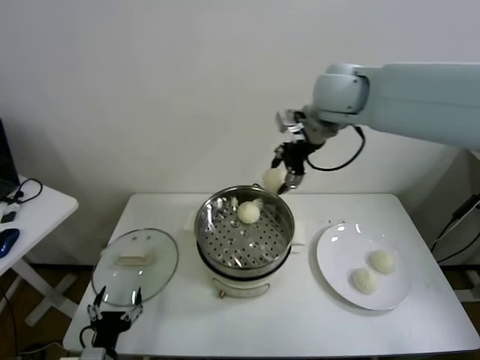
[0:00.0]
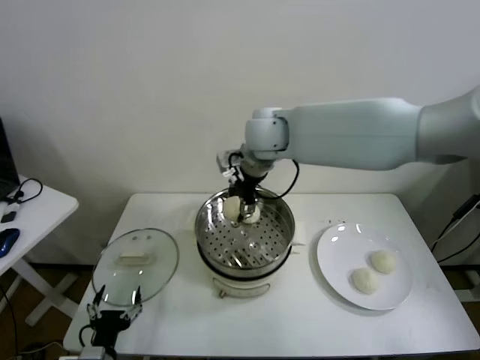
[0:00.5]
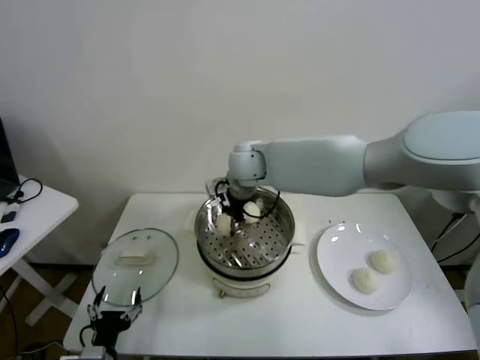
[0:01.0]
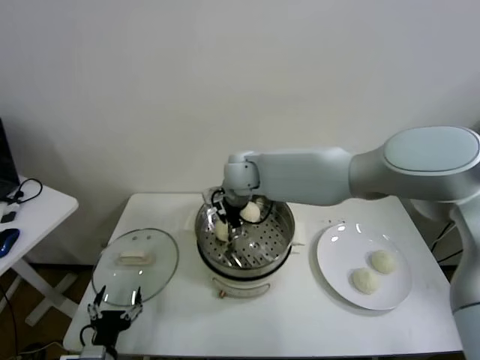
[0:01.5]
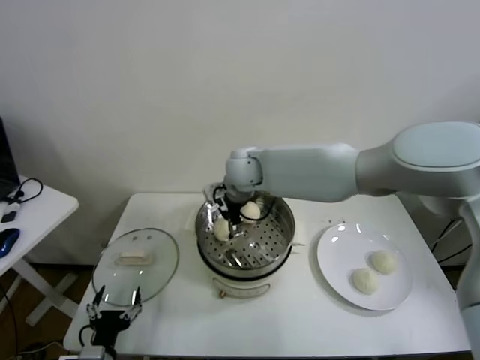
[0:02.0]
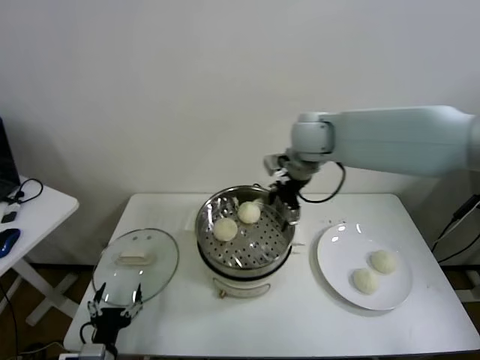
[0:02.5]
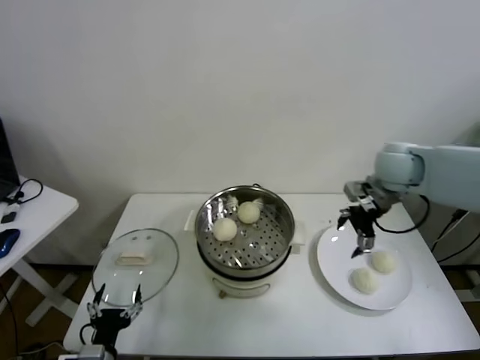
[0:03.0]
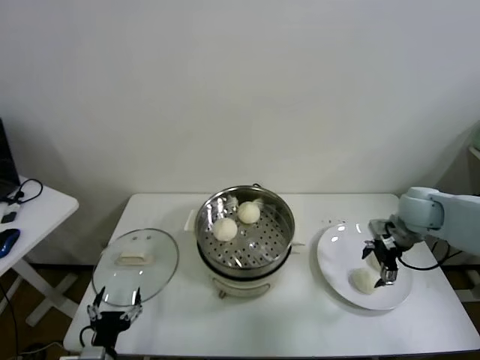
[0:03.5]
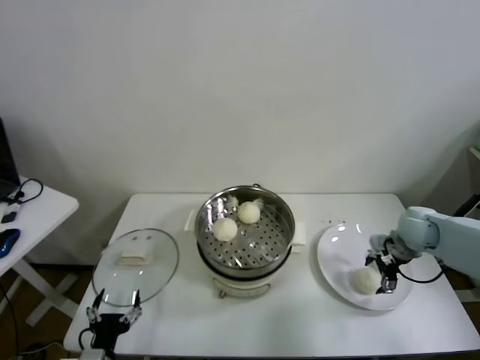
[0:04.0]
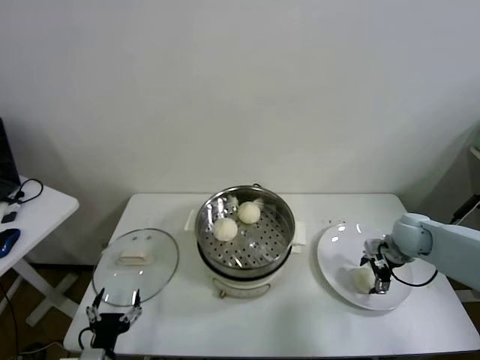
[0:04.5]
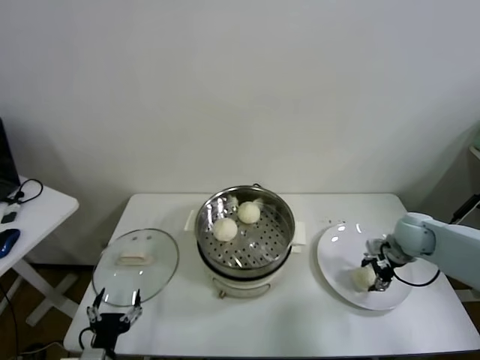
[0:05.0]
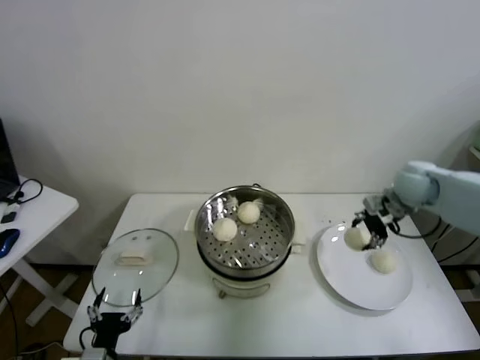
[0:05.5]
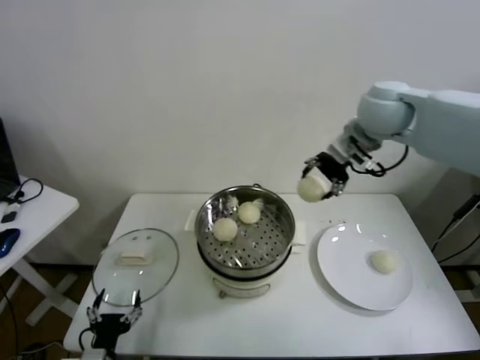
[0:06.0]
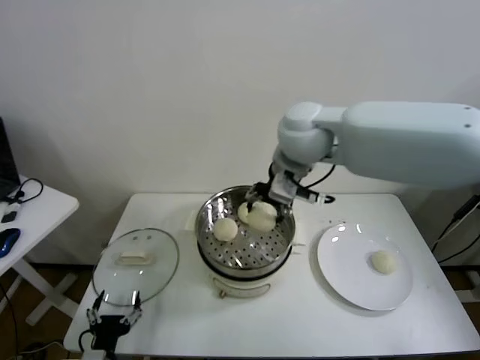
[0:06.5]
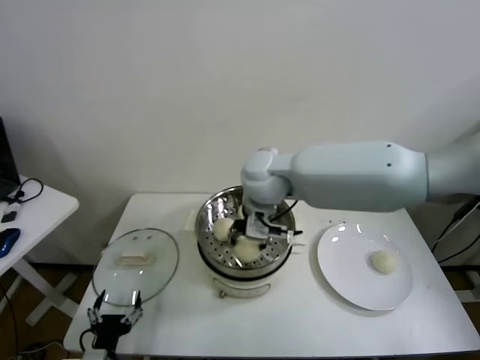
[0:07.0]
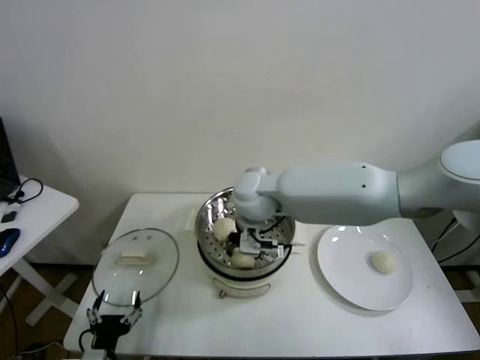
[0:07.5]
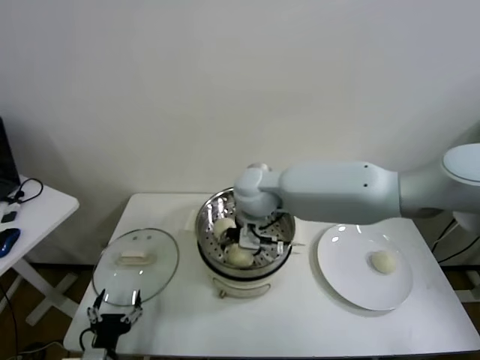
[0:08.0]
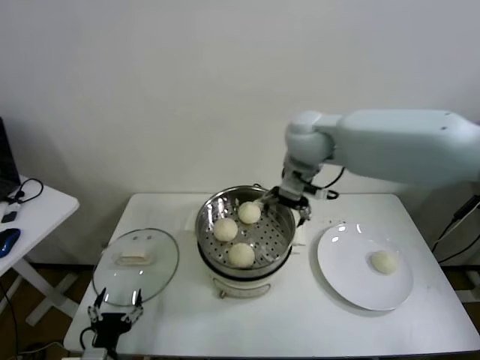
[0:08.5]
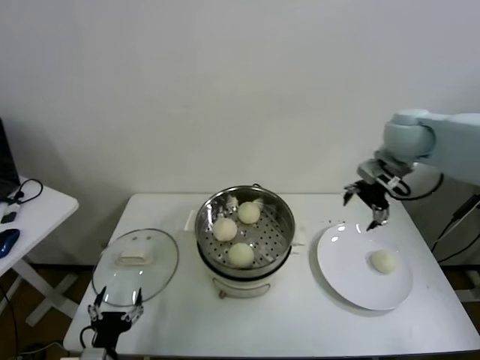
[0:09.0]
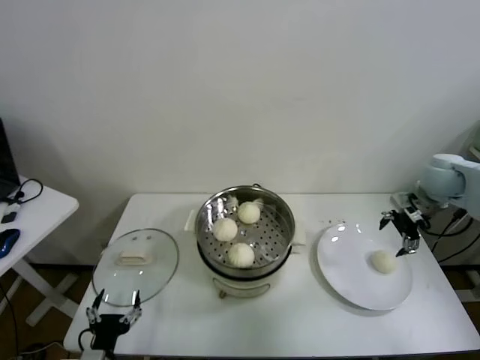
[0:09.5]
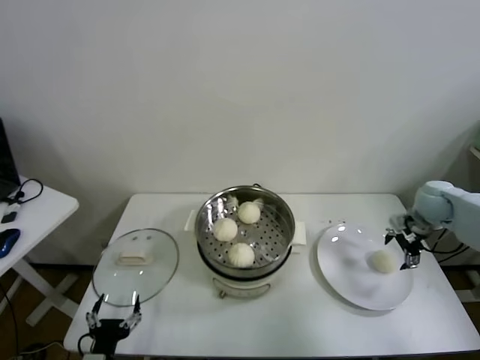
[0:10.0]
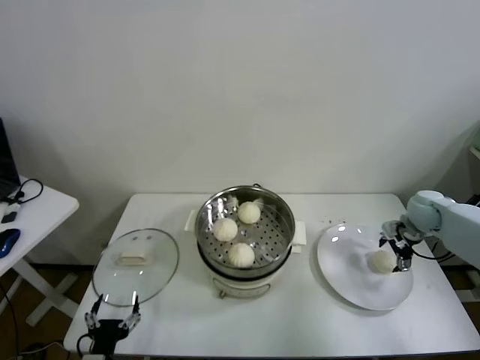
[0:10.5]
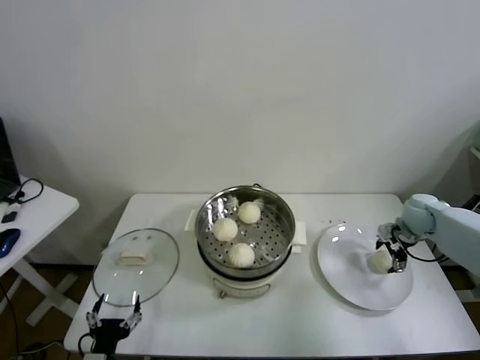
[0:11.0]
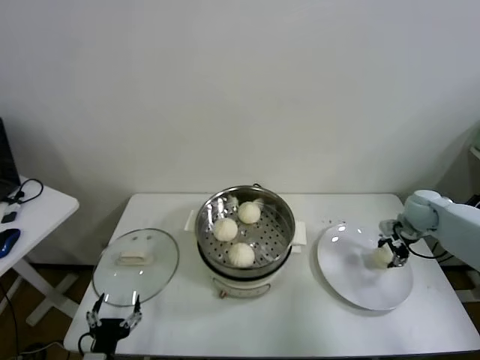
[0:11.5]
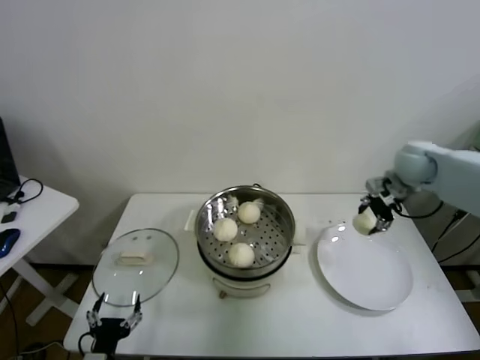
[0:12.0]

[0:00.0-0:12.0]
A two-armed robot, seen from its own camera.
Task of the whole recording: take steamed baozi put them in steamer.
Step, 0:00.0 to 0:01.5: Place the baozi on the steamer with right gripper.
Step, 0:02.0 to 0:05.0: Grasp the baozi in the plate with right gripper.
Step, 0:05.5 to 0:07.5: Place the baozi on the steamer with right gripper.
Step, 0:08.0 to 0:11.0: Grasp the baozi in the plate with right gripper.
0:00.0 to 0:02.0: The right gripper goes roughly 20 cm downward and to the left, and opens.
0:02.0 to 0:04.0: The right gripper moves to the right, about 40 cm.
0:04.0 to 0:06.0: The right gripper goes about 35 cm upward and to the left, and closes up.
0:06.0 to 0:08.0: The right gripper goes about 25 cm to the left and downward, and opens its fingers.
0:08.0 to 0:10.0: The right gripper shifts about 40 cm to the right.
0:10.0 to 0:12.0: The right gripper travels upward and to the left by approximately 15 cm, and closes its fingers.

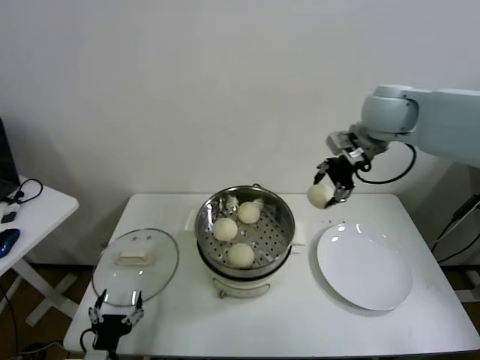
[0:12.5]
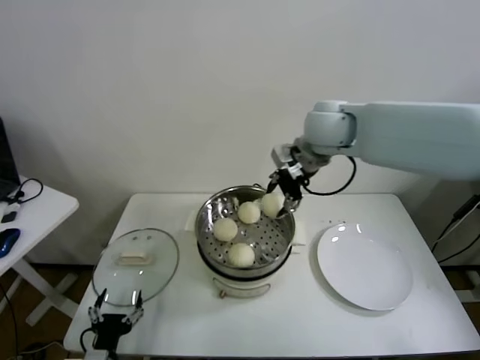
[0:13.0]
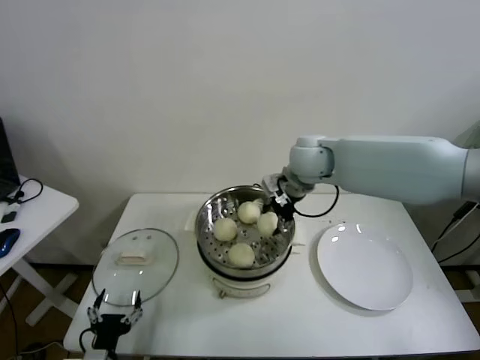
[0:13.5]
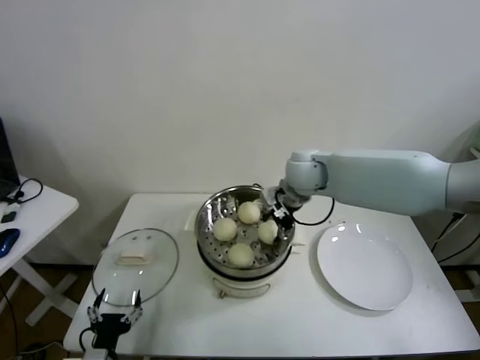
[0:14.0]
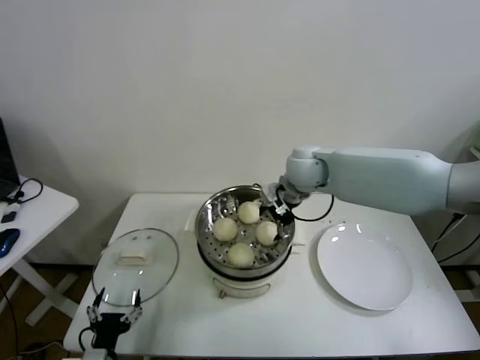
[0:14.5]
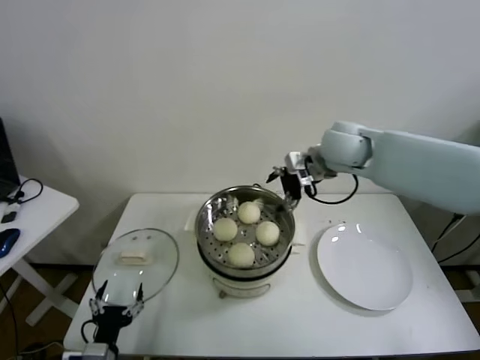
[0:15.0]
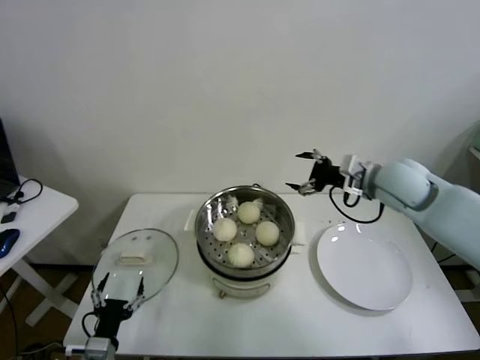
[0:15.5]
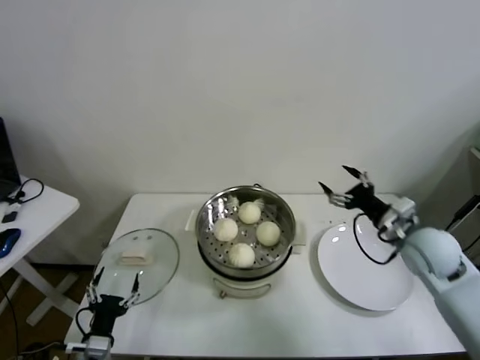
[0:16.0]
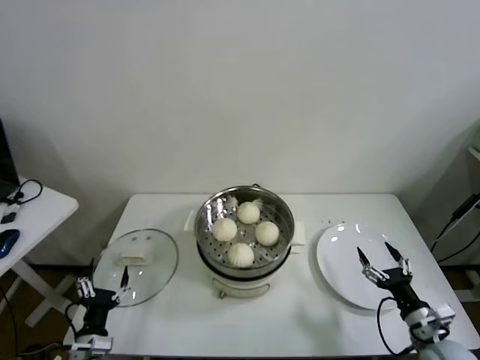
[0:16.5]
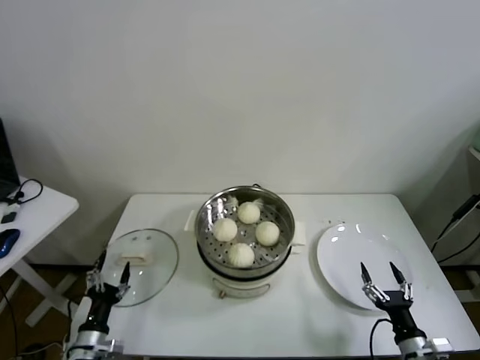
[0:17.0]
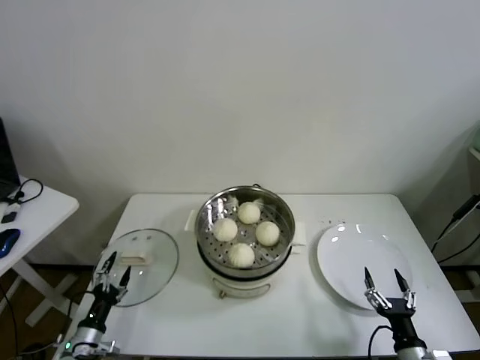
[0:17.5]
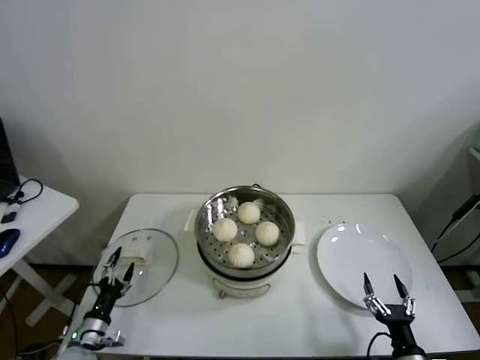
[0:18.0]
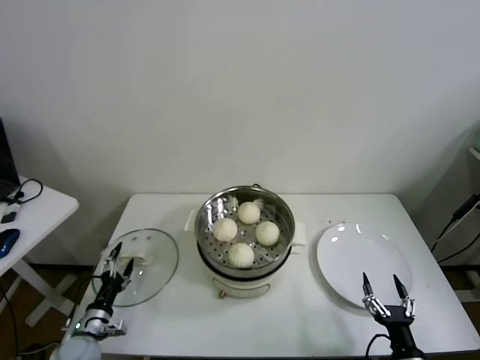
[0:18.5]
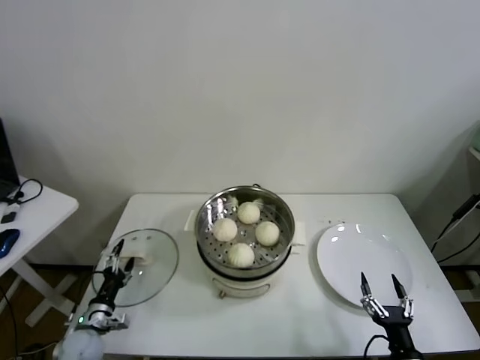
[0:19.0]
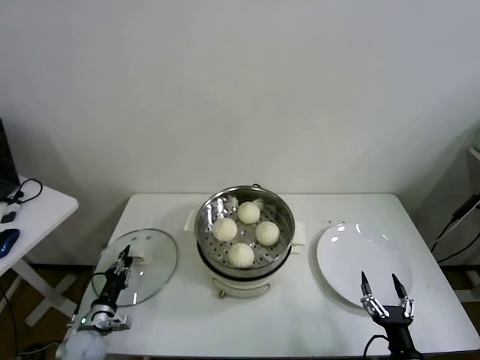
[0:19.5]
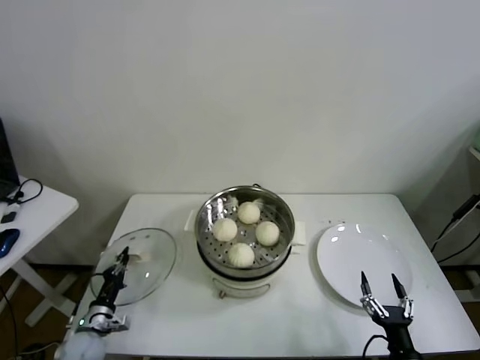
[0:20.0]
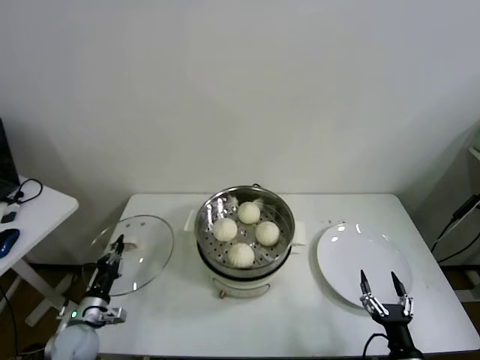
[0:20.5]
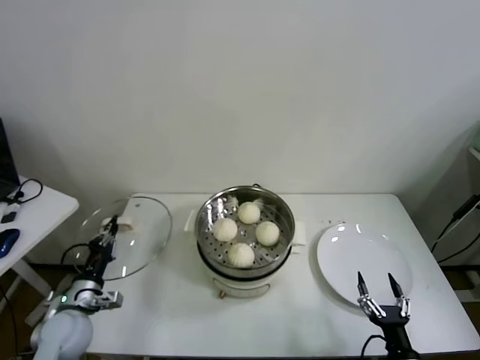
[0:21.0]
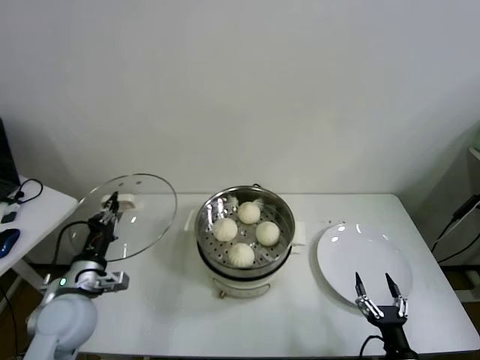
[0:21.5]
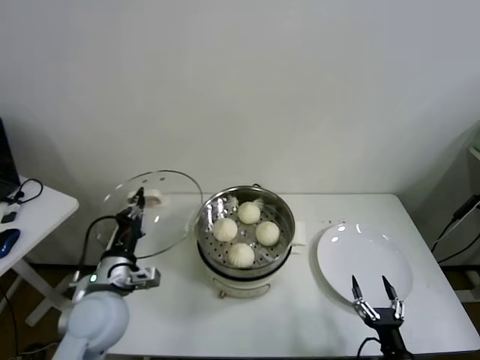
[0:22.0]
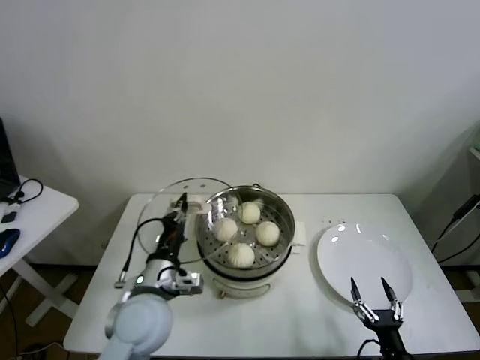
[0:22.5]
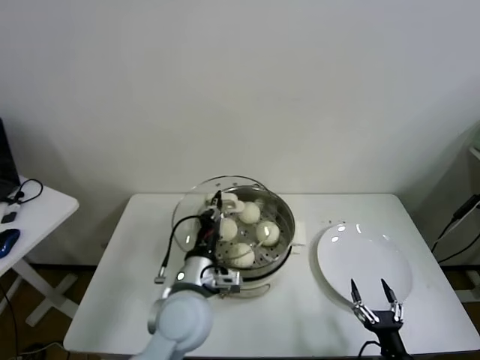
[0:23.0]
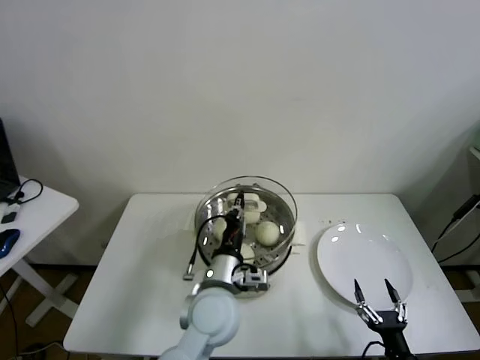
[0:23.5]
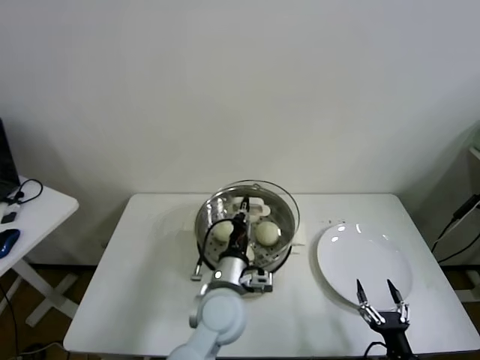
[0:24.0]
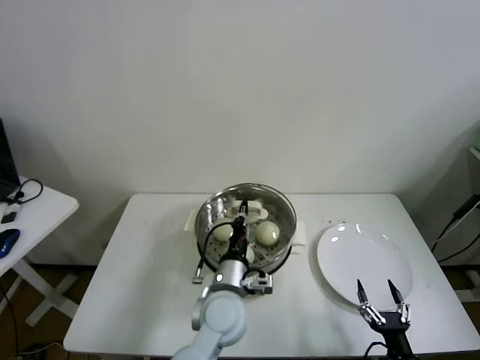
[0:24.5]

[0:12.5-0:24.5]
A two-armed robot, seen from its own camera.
Task of the whole recording: take steamed baozi put them in steamer.
Step, 0:12.5 to 0:14.0: Place the baozi on the steamer with right gripper.
Step, 0:14.5 to 0:19.5: Grasp the pot lid with left gripper.
0:12.5 to 0:14.5: The right gripper goes about 20 cm downward and to the left, and opens up.
0:14.5 to 0:16.5: The left gripper shifts by about 5 cm. Meanwhile the right gripper goes approximately 50 cm backward, to the right and downward.
0:16.5 to 0:18.5: The right gripper moves backward, downward and to the left, some 10 cm. Meanwhile the left gripper shifts roughly 10 cm forward, to the left and downward.
0:18.5 to 0:20.5: The left gripper closes.
0:20.5 to 0:22.5: The left gripper is displaced to the right and upward by some 30 cm.
0:22.5 to 0:24.5: The left gripper moves to the right, about 15 cm.

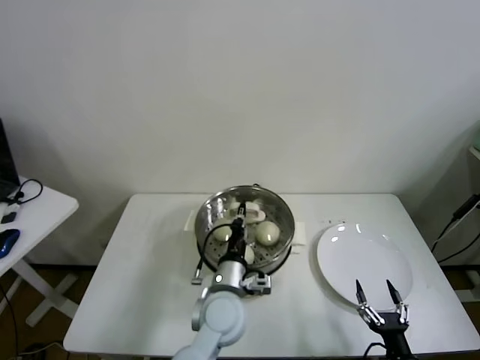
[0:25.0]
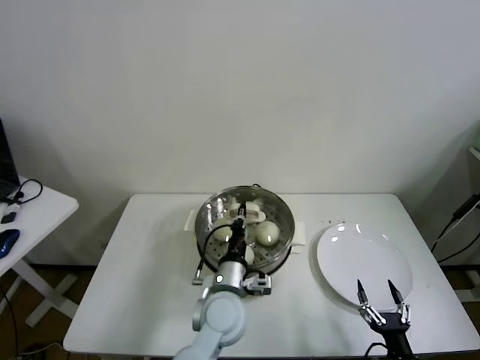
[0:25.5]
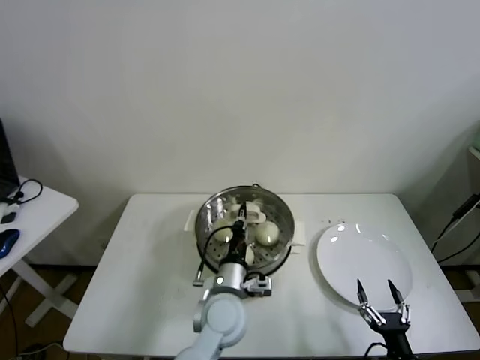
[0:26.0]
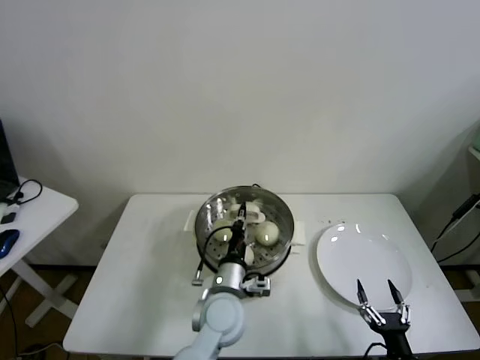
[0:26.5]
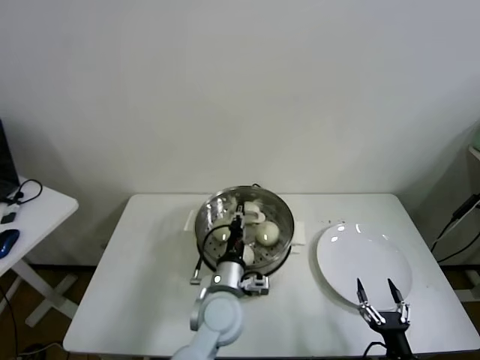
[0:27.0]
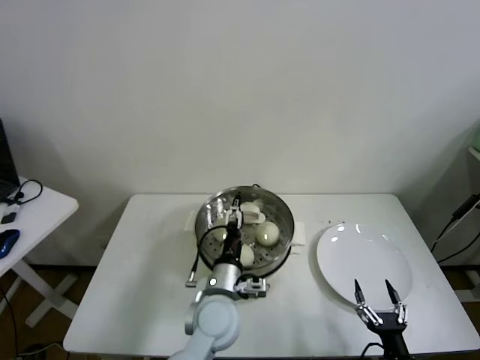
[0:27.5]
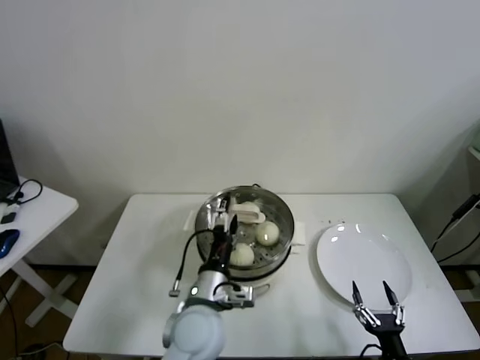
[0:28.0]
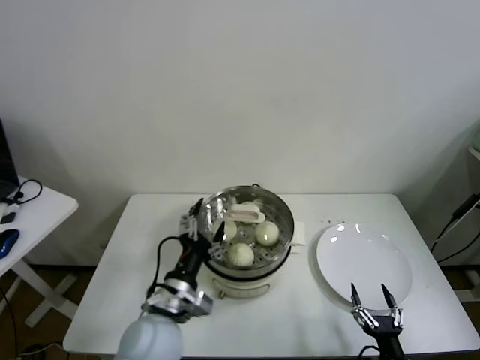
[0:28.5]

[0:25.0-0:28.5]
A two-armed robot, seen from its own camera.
Task of the whole recording: take steamed baozi put them in steamer.
Step, 0:25.0 to 0:27.5: Place the pot lid on the steamer with left gripper.
0:25.0 to 0:27.0: Neither gripper changes place.
0:27.0 to 0:28.5: The left gripper heads to the left, backward and upward, covering about 10 cm, and opens.
